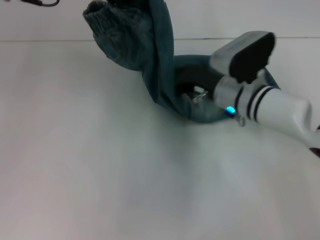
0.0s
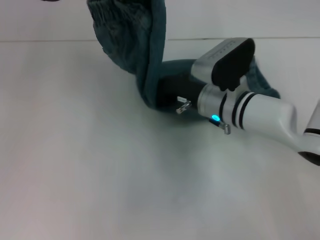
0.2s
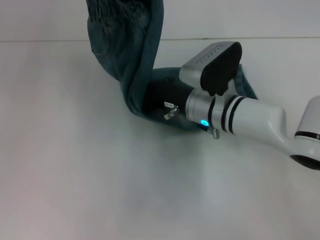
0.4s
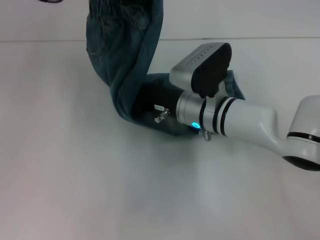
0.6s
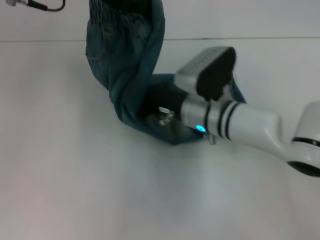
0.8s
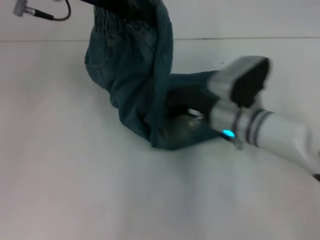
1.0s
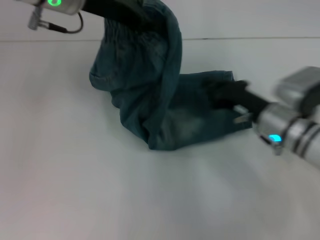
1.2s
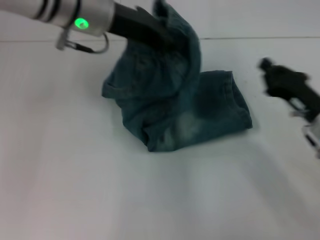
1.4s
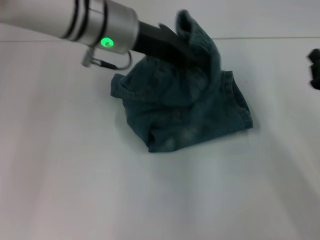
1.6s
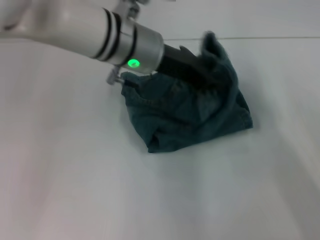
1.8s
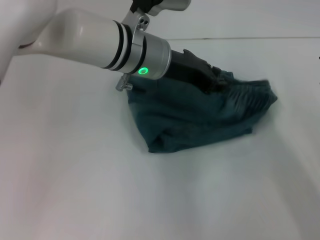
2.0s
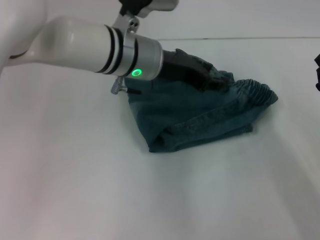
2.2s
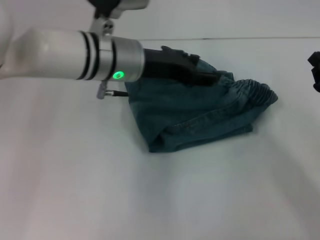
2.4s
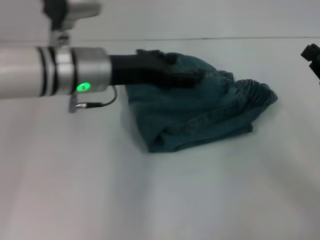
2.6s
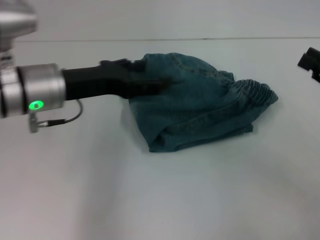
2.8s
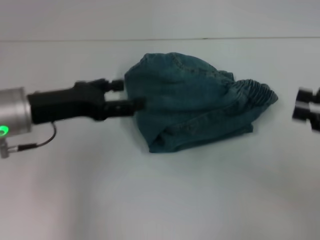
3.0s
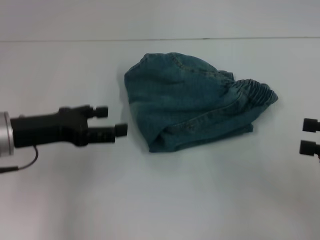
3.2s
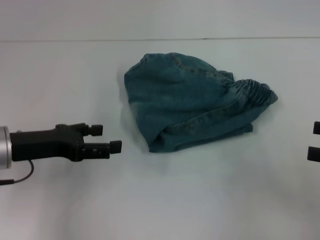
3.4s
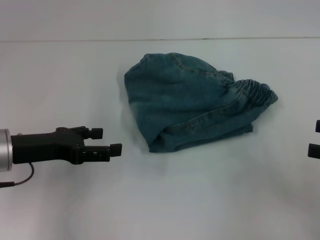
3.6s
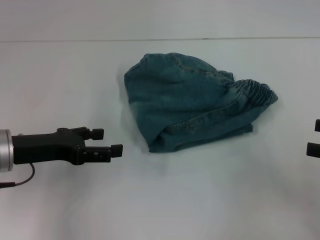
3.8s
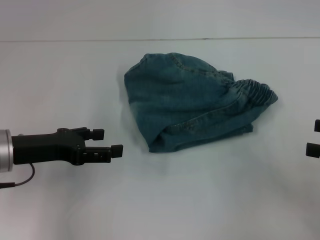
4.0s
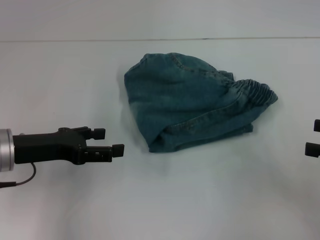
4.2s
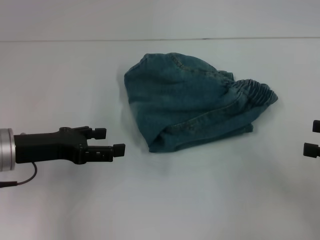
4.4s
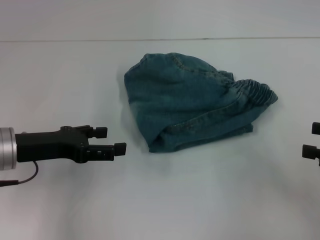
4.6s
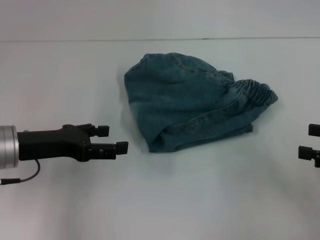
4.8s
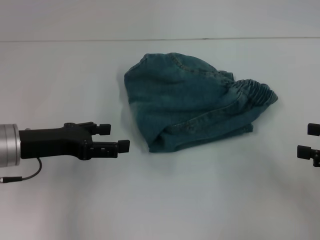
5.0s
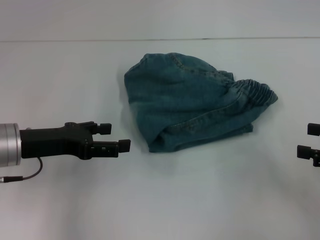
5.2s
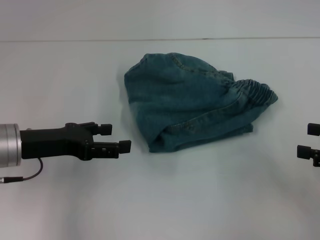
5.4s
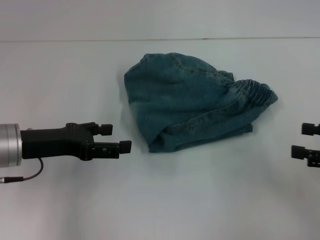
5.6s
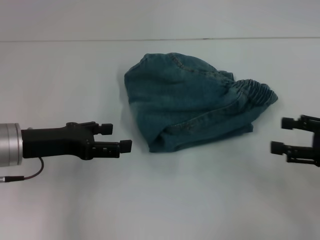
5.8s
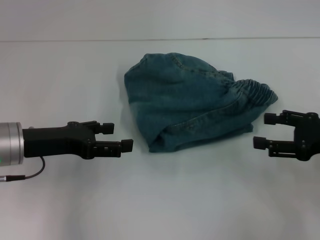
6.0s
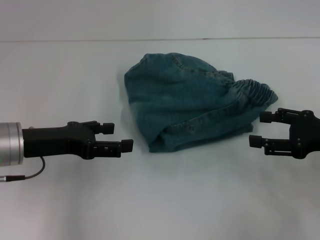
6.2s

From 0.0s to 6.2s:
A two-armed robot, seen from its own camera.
Step, from 1.0s to 2.4s: Fold to the right with your left hand.
From 0.0s to 1.6s: The left gripper moves downward and to the right, some 10 cm; the right gripper is displaced to the right and backward by about 20 cm.
From 1.6s to 3.2s: The left gripper goes approximately 20 cm to the left, backward and downward, and opens; the right gripper is displaced upward, to the right and backward by roughly 10 cm, and opens its fingers.
From 3.2s to 4.6s: The right gripper opens.
From 4.6s to 6.2s: The right gripper heads to the left, covering roughly 5 cm.

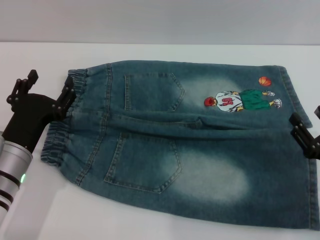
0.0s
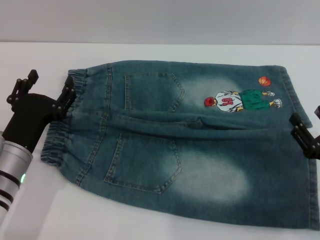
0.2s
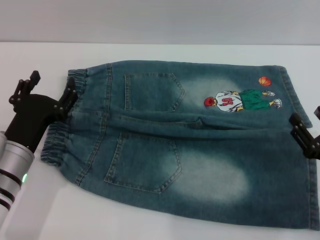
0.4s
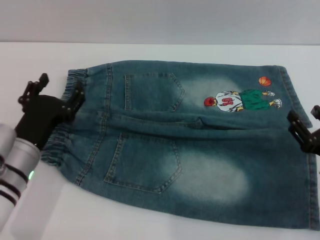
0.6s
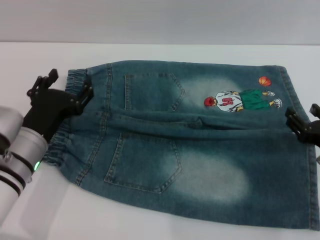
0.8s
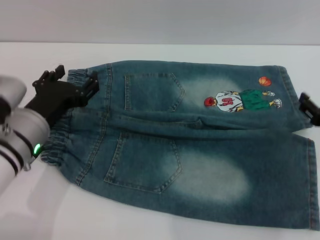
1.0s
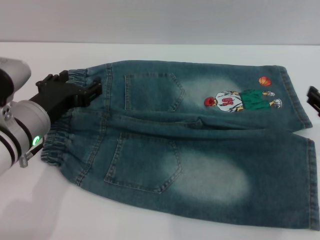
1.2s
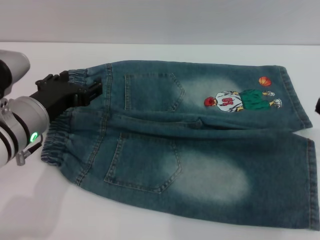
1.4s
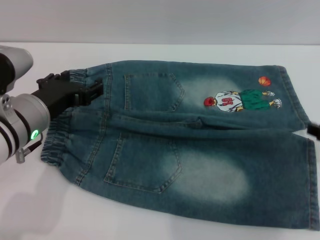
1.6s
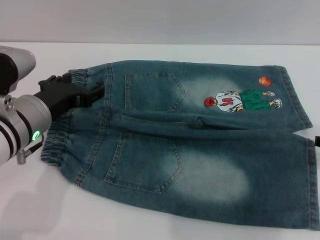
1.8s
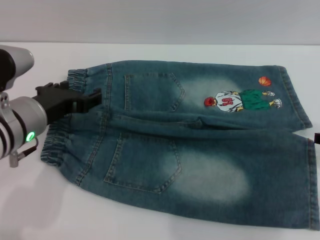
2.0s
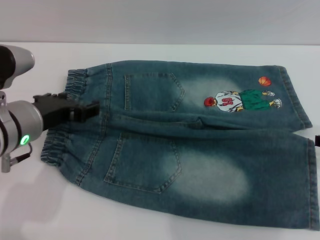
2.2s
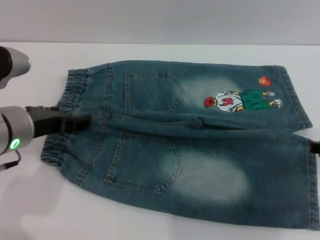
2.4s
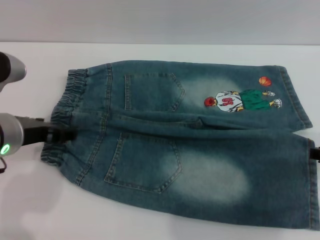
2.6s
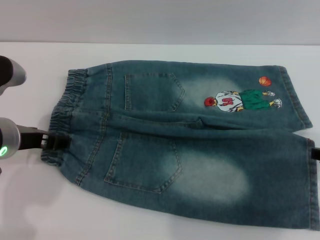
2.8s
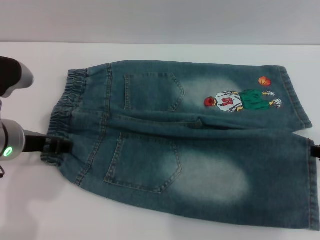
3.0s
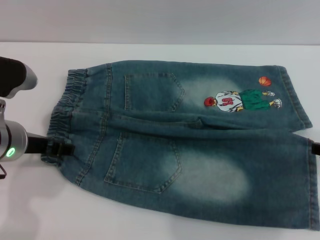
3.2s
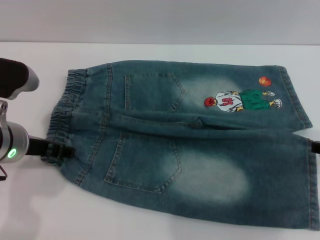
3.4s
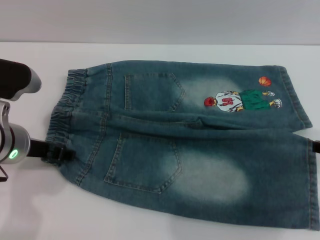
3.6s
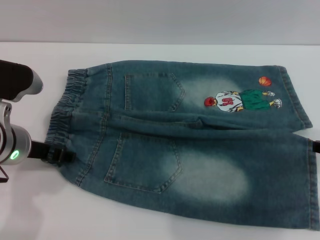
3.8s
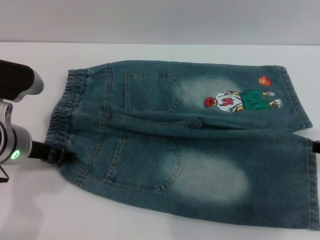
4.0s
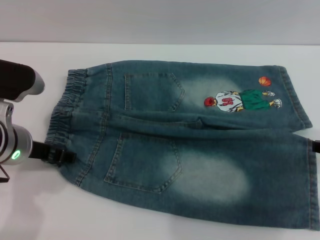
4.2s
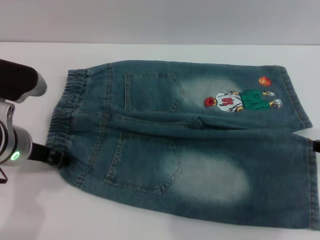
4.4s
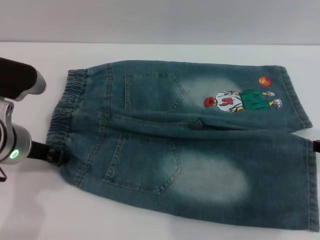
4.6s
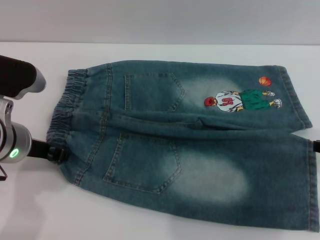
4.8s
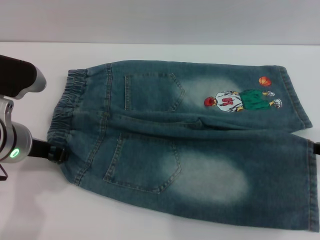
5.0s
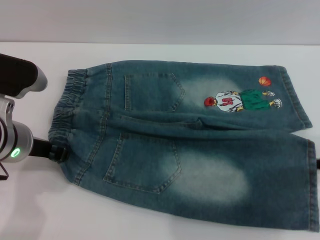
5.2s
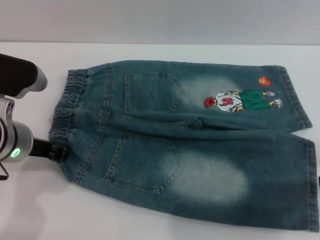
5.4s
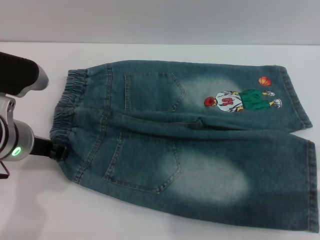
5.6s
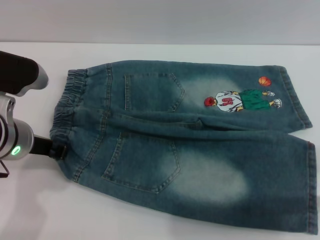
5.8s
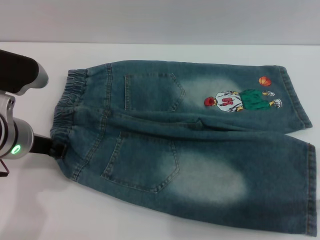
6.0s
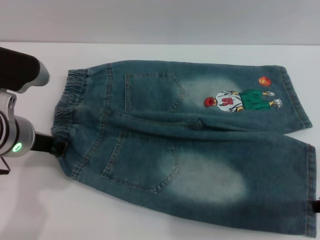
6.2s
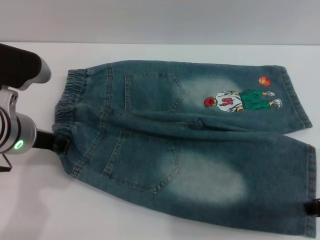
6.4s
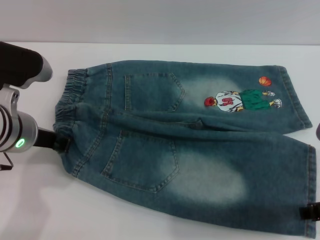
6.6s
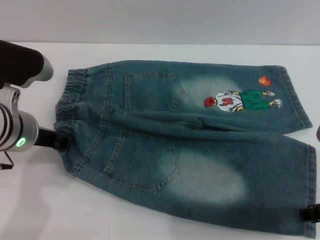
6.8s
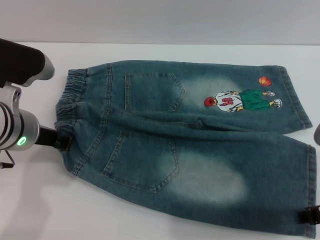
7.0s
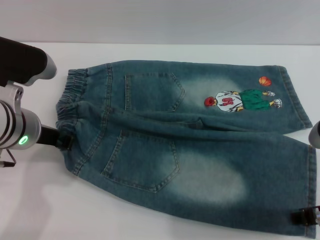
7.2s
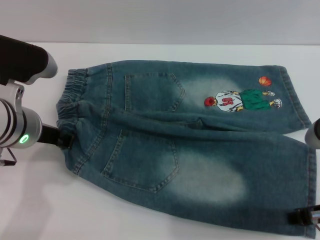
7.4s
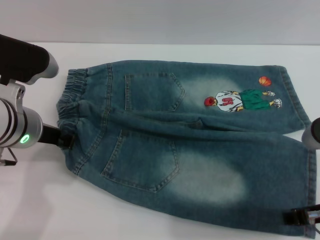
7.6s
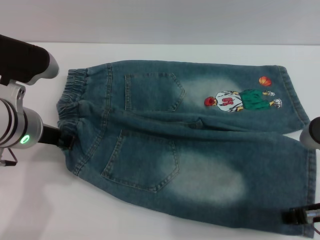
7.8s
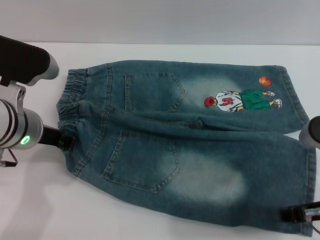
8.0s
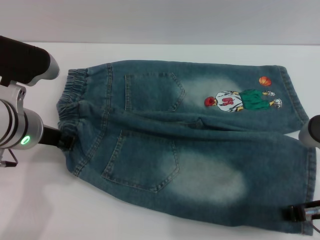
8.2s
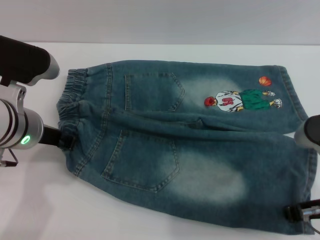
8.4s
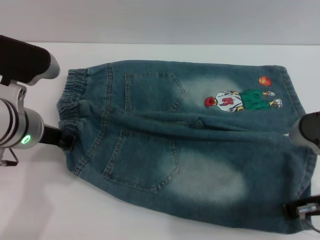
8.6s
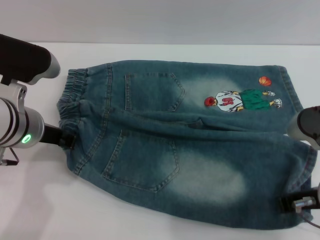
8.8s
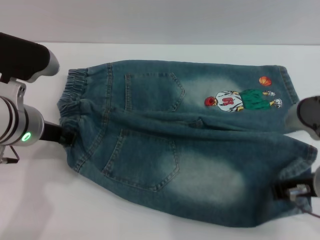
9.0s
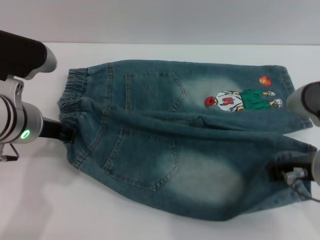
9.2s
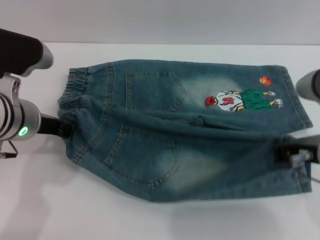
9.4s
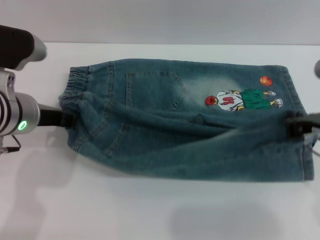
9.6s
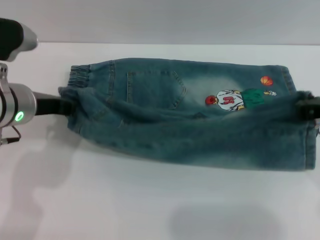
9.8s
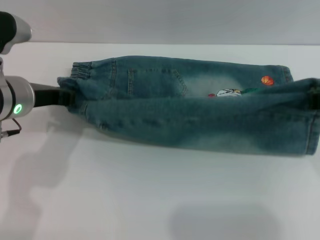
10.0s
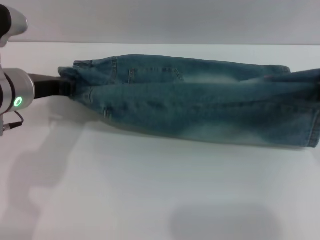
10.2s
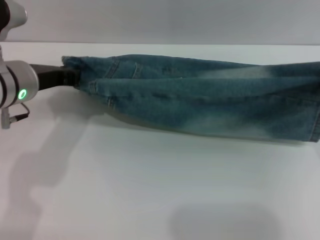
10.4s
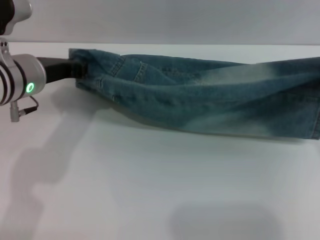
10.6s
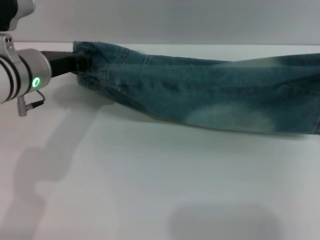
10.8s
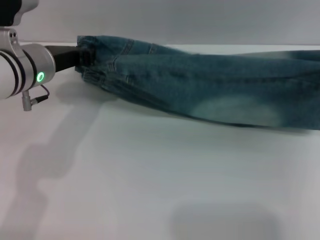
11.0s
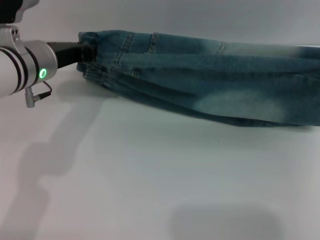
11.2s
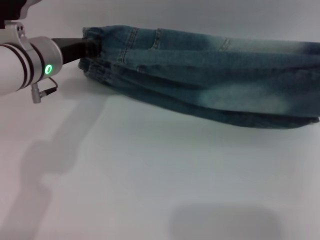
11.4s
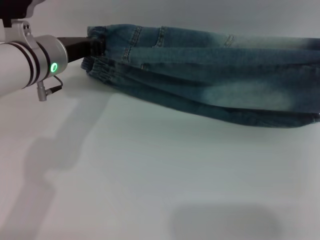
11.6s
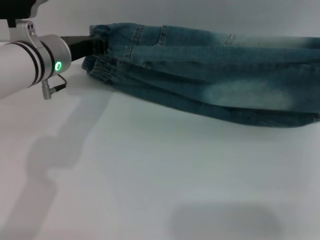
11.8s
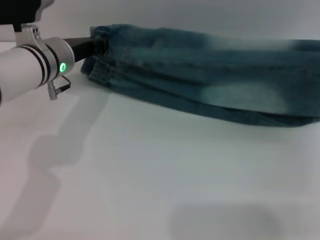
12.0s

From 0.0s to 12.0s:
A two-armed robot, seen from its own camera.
From 0.0s to 1.6s: The right gripper shifts roughly 10 cm upward and forward, while the left gripper is displaced upward by roughly 10 cm.
From 3.0s to 4.4s: The grippers move only a little.
From 4.4s to 6.0s: The left gripper closes up.
From 6.0s to 7.6s: There are only small adjustments of the grippers.
From 7.6s to 9.0s: The right gripper closes.
From 9.0s to 10.4s: The right gripper goes some 5 cm to the right.
From 10.4s to 12.0s: The left gripper goes roughly 5 cm forward; the right gripper heads to the right and downward, covering approximately 10 cm.

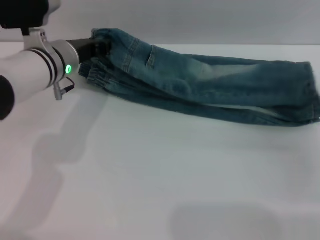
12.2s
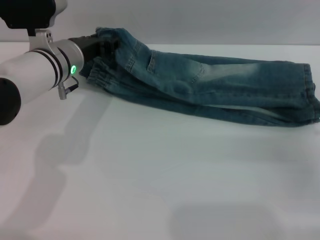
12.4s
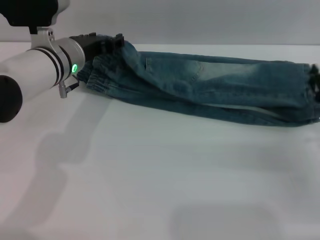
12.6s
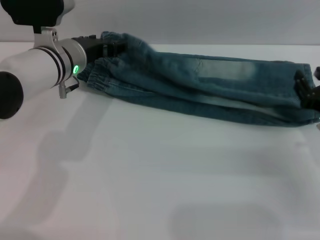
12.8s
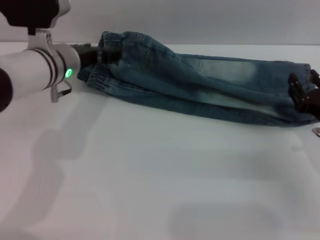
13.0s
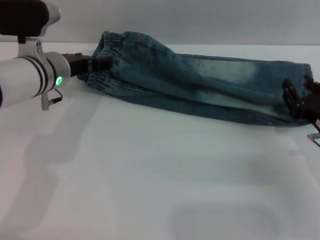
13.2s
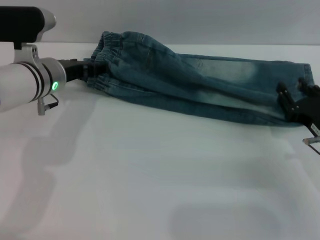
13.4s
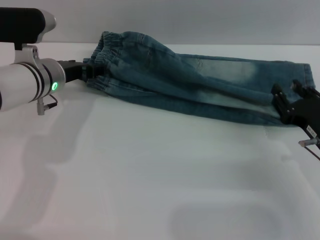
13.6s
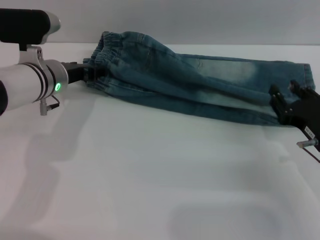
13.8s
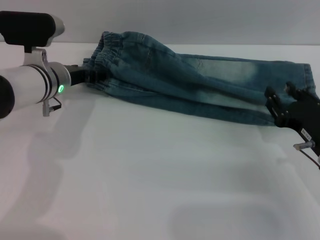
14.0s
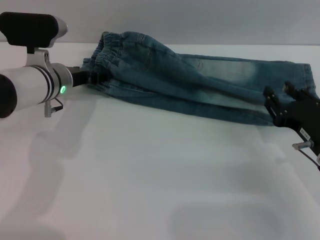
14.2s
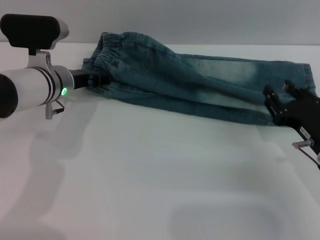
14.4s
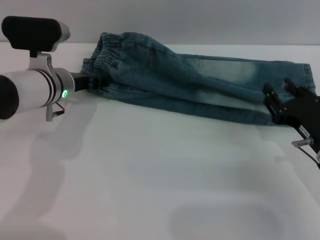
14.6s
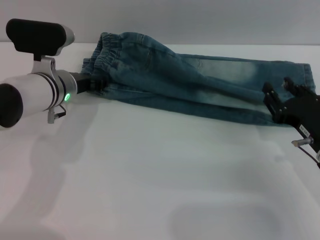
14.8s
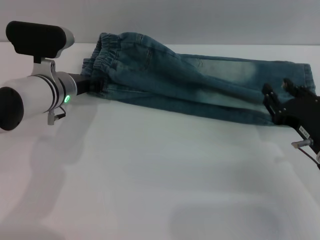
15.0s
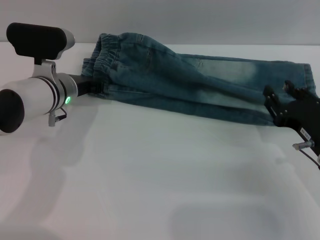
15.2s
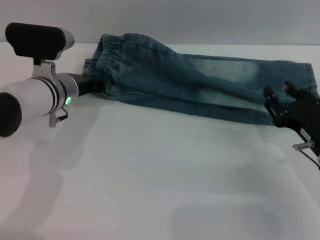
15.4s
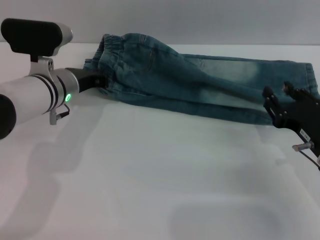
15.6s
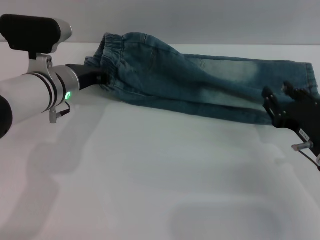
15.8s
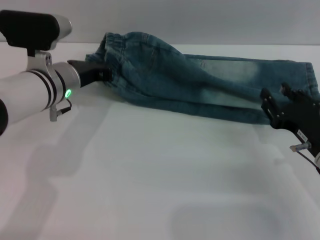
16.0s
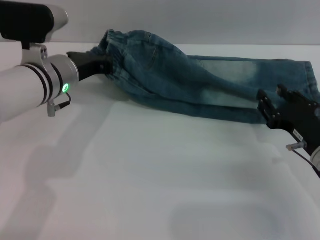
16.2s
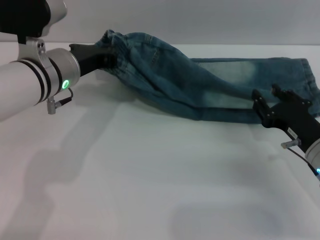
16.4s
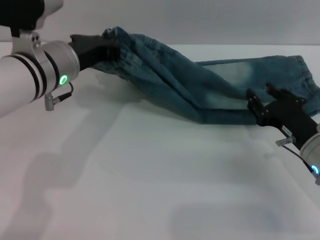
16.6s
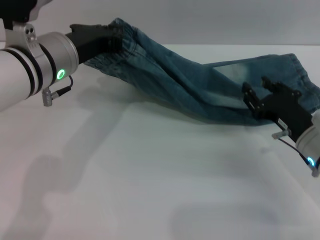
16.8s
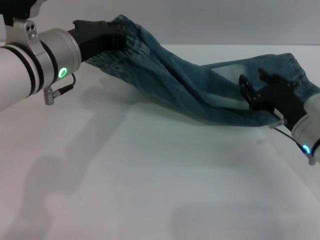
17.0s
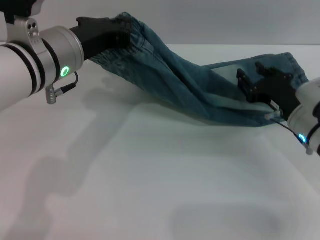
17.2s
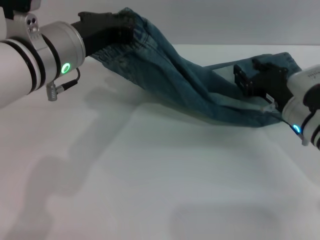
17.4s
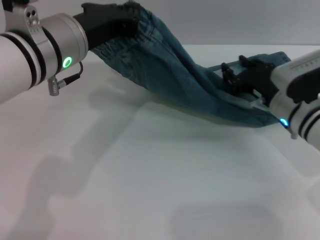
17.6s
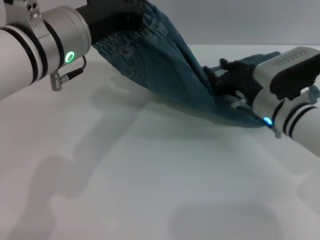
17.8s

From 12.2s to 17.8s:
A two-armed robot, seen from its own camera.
From 12.2s to 13.6s: The left gripper opens its fingers, while the right gripper moves to the left and backward, some 10 cm, and opens up.
From 13.6s to 15.0s: The left gripper closes its fingers.
From 15.0s to 16.4s: The left gripper travels upward by some 5 cm, and closes up.
From 16.4s to 17.8s: The left gripper heads upward and backward, covering approximately 10 cm. The right gripper is displaced forward and to the left by approximately 10 cm.
